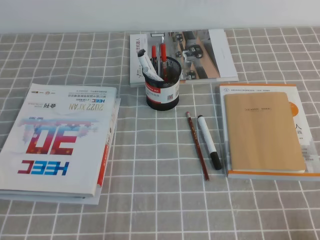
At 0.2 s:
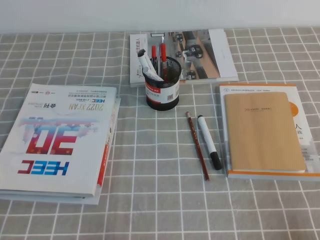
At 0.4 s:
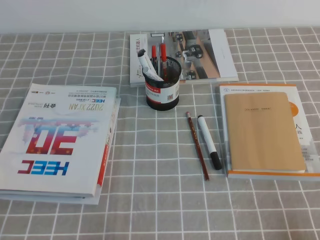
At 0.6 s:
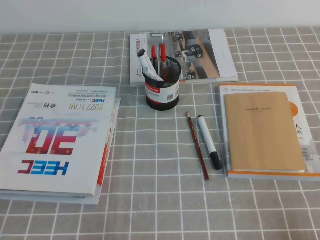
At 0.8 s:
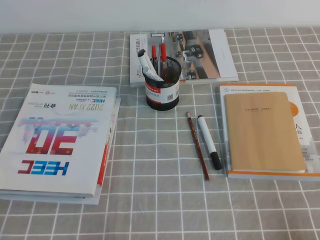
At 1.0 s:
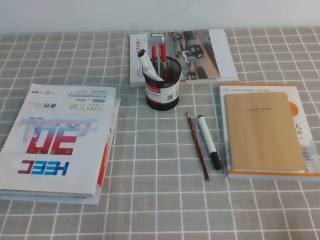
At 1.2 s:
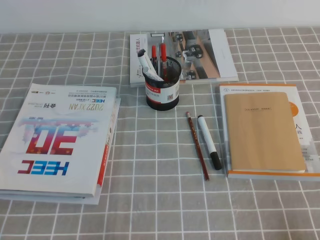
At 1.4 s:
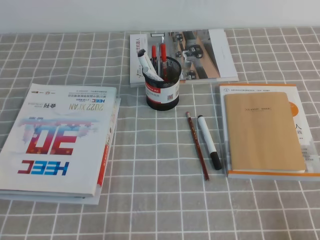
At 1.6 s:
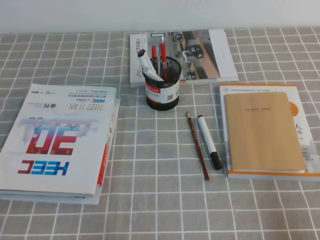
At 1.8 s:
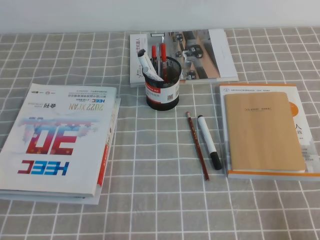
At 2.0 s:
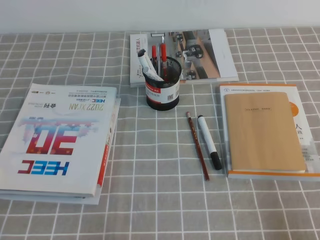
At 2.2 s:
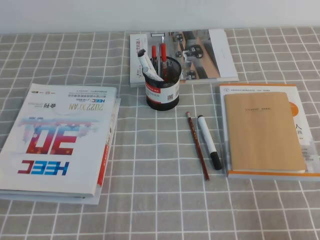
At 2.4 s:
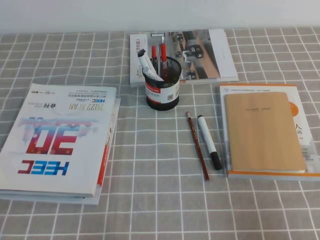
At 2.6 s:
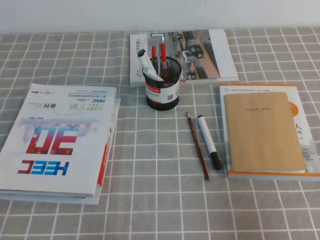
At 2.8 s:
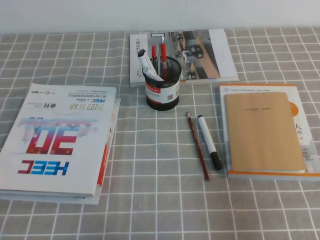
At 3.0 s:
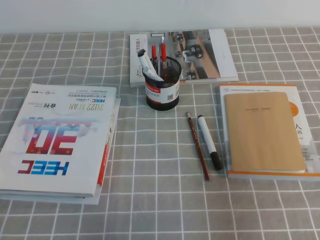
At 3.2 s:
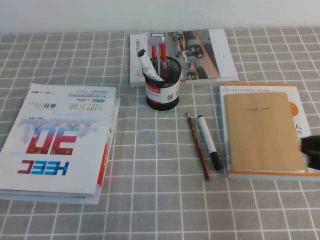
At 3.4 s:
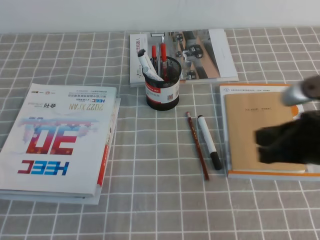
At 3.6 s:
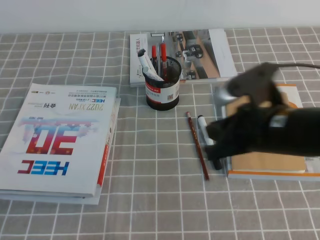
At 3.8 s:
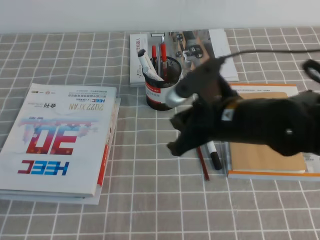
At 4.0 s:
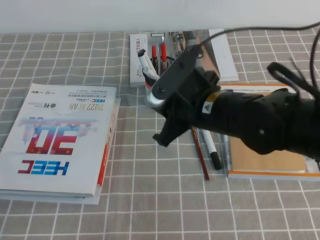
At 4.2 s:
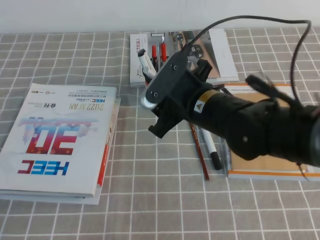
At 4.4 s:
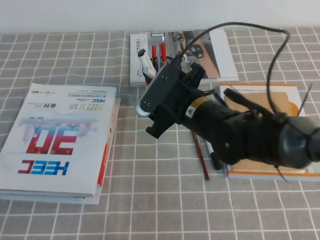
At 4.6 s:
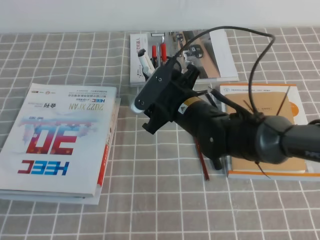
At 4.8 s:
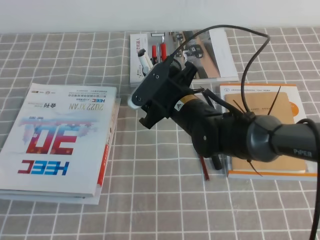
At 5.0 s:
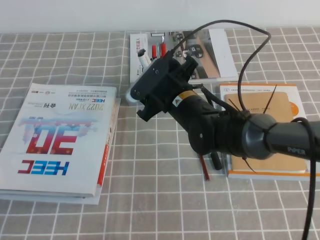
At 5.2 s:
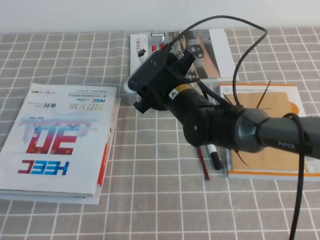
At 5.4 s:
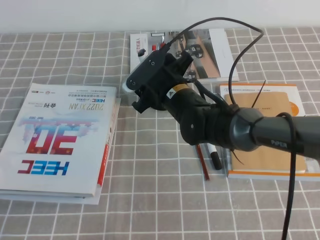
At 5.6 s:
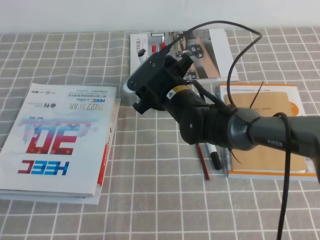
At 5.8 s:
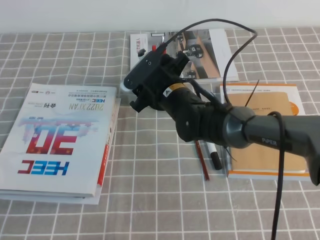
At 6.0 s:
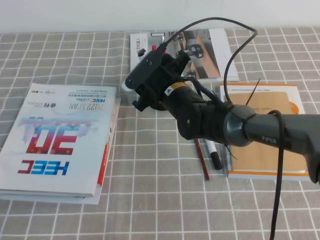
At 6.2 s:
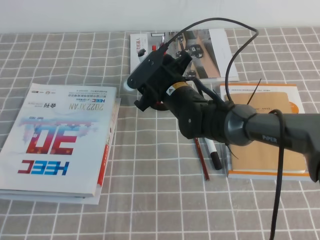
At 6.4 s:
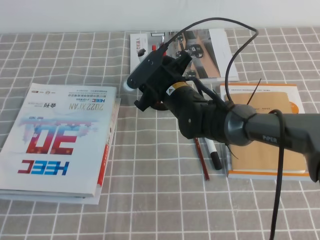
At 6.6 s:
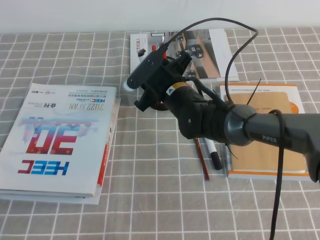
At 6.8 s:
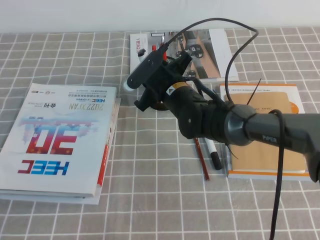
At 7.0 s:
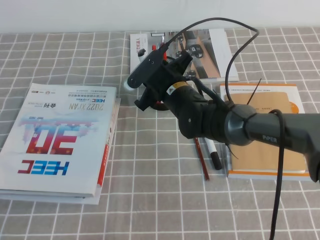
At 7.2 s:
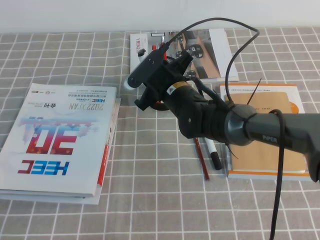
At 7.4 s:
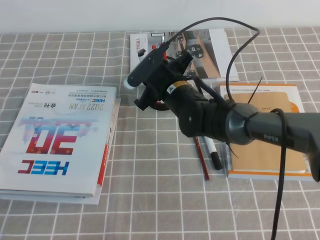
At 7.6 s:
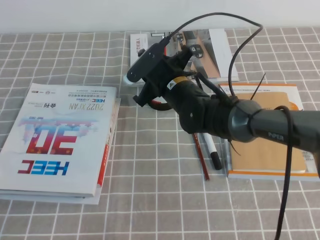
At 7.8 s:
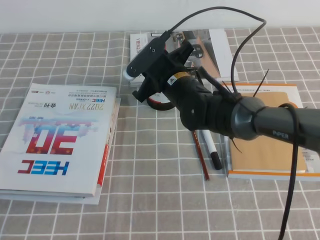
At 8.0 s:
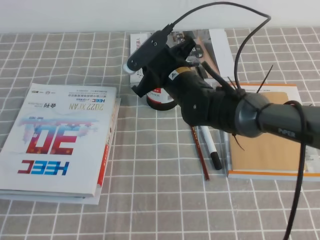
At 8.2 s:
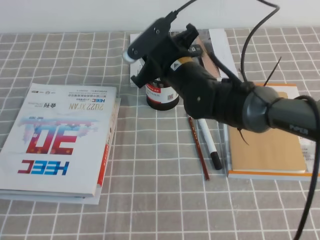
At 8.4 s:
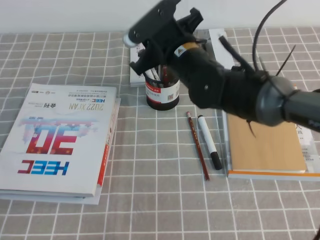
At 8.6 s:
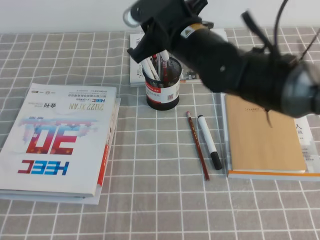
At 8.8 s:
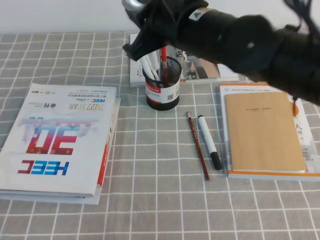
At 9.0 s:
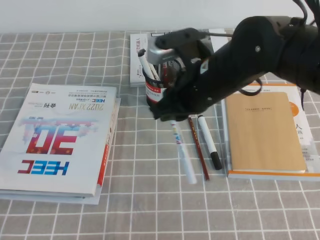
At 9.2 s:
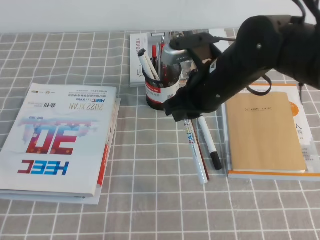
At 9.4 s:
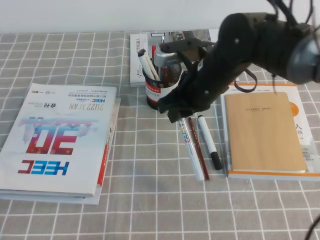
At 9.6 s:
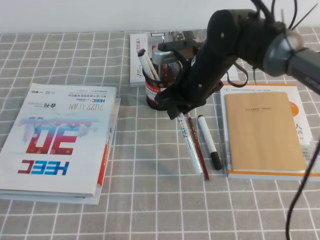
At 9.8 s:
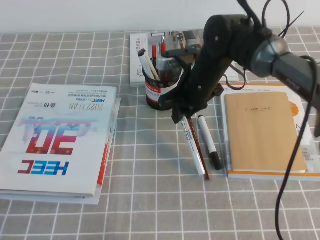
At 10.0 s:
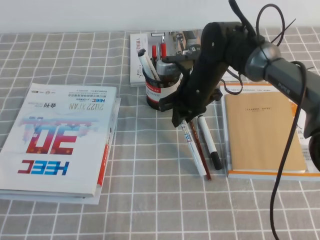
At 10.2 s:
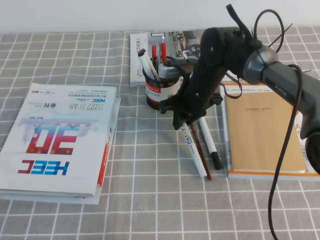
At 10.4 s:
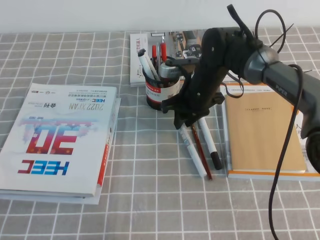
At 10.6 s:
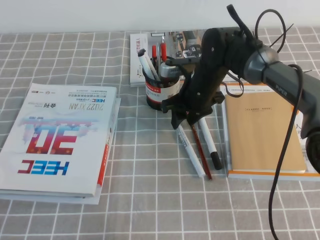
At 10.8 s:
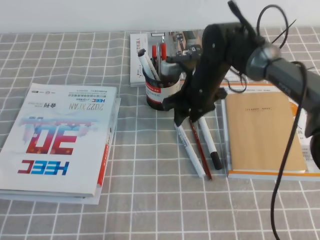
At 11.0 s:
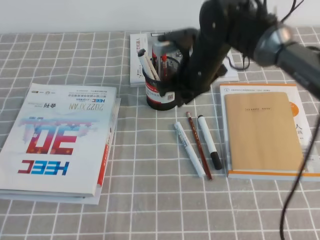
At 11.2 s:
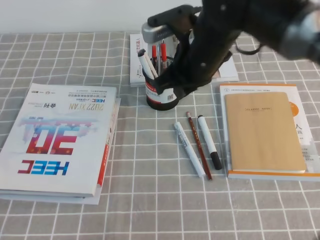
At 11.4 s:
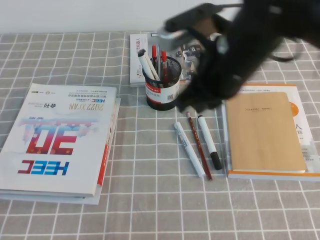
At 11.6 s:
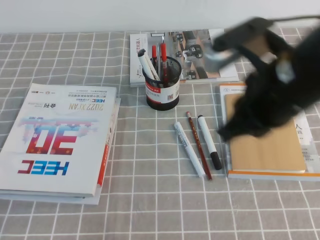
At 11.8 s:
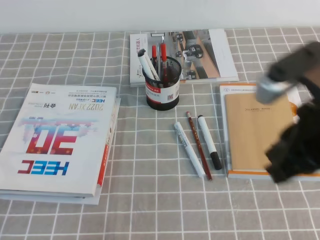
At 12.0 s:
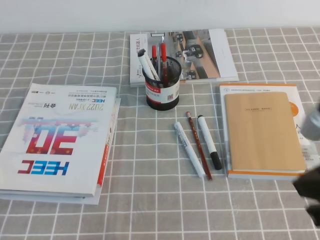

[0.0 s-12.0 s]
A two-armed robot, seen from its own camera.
1.6 to 3.0 s: The right gripper goes some 15 cm forward and upward.
3.0 to 4.4 s: The right gripper moves to the left and forward, approximately 30 cm, and opens its fingers.
4.4 to 6.0 s: The right gripper is displaced forward by some 10 cm.
6.0 to 7.6 s: The right gripper closes.
7.6 to 9.0 s: The right gripper goes roughly 15 cm upward and backward.
9.0 to 10.4 s: The right gripper goes roughly 15 cm downward and forward.
10.4 to 12.0 s: The right gripper moves backward, upward and to the right, about 35 cm, and closes.

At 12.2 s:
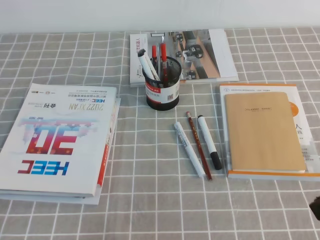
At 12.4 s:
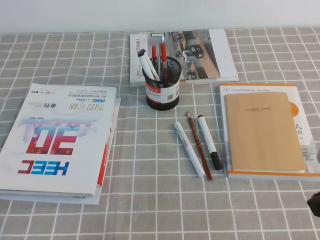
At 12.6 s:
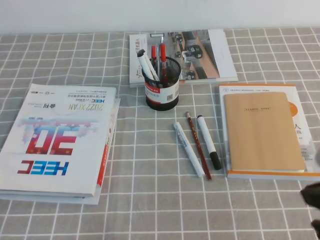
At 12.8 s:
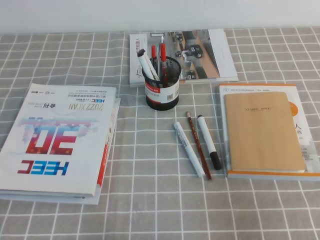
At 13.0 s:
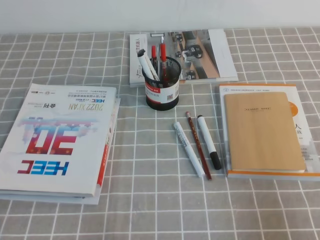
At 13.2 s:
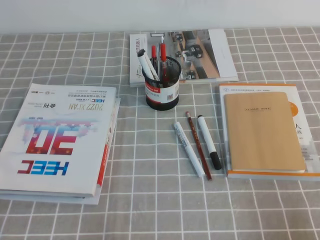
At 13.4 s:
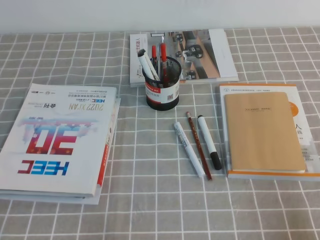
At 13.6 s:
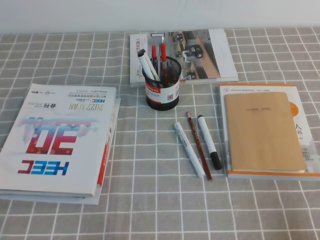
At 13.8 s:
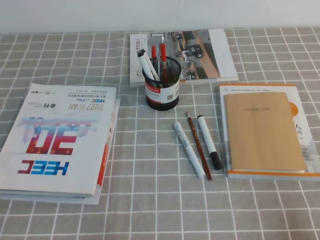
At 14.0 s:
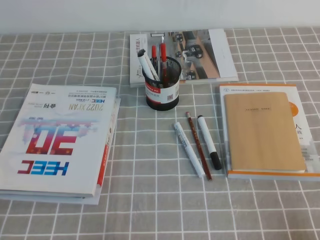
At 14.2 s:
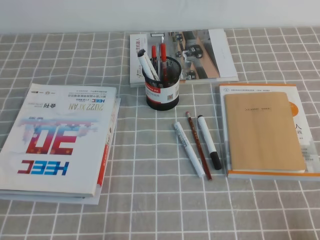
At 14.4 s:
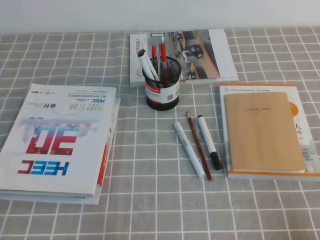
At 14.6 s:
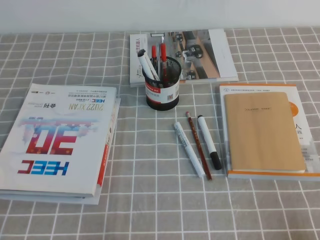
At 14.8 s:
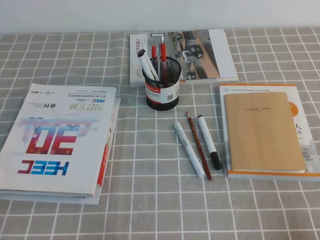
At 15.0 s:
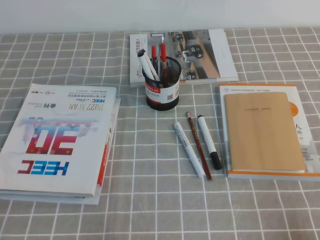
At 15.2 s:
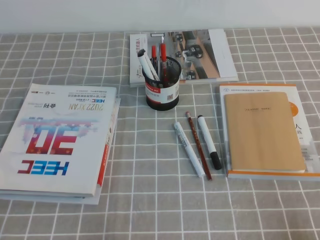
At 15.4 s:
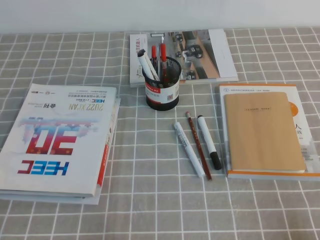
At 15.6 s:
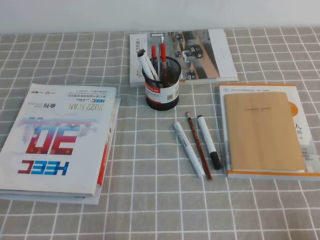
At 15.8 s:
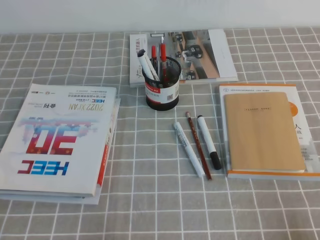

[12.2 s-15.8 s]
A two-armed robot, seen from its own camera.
Step, 12.2 to 15.8 s: Pick up the pen from the pen holder.
12.2 to 14.0 s: The right gripper travels downward and to the right by roughly 20 cm.
14.0 to 15.8 s: Neither gripper changes place.
